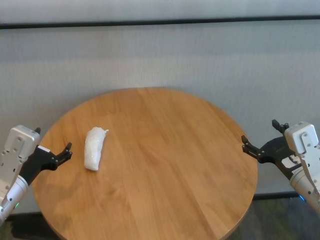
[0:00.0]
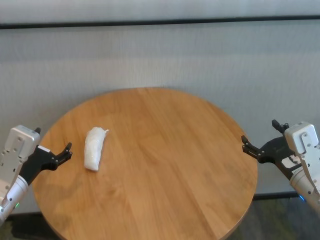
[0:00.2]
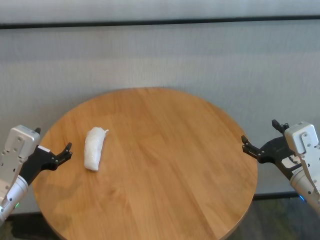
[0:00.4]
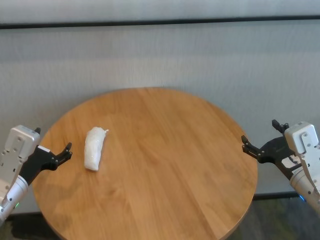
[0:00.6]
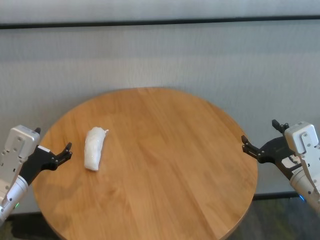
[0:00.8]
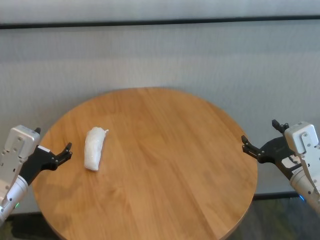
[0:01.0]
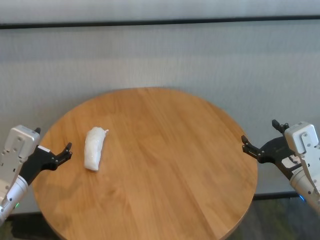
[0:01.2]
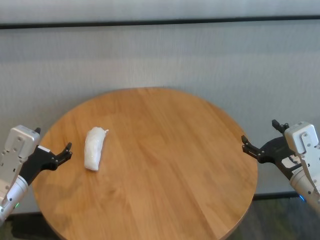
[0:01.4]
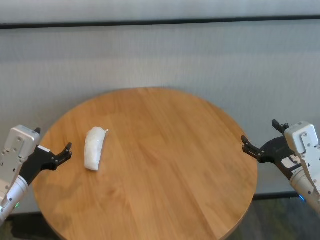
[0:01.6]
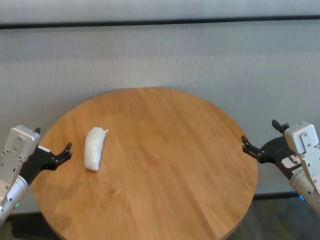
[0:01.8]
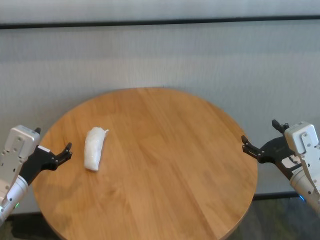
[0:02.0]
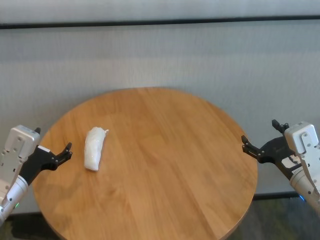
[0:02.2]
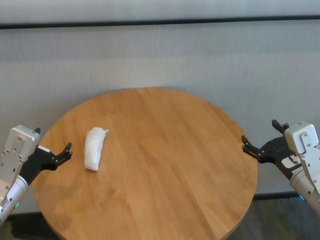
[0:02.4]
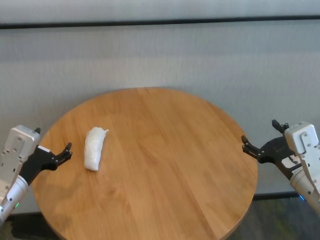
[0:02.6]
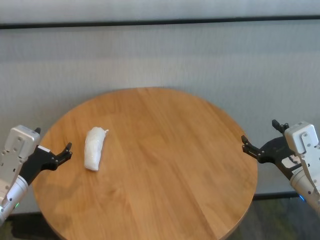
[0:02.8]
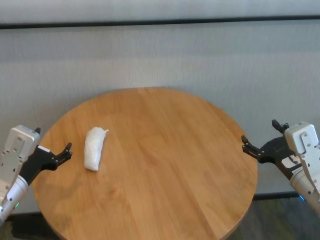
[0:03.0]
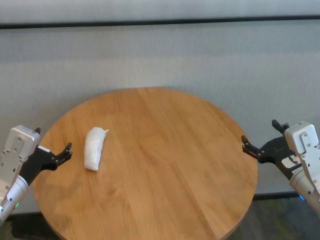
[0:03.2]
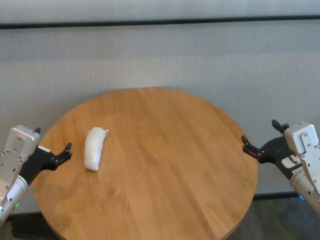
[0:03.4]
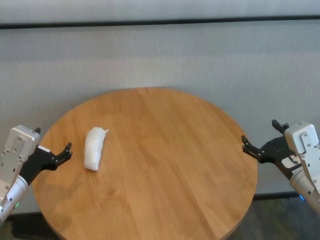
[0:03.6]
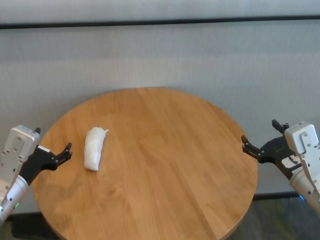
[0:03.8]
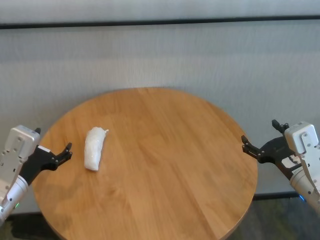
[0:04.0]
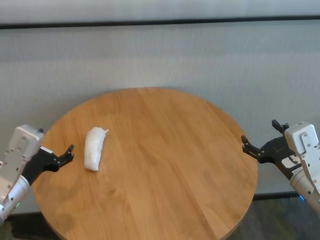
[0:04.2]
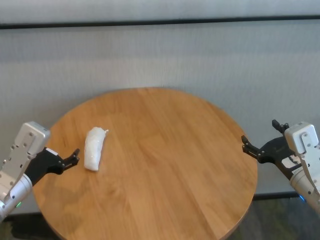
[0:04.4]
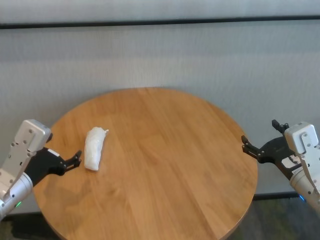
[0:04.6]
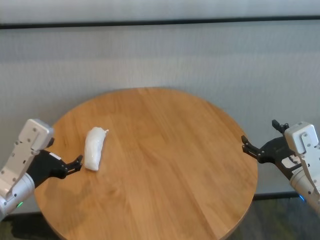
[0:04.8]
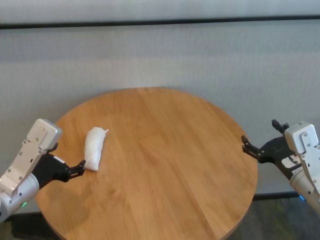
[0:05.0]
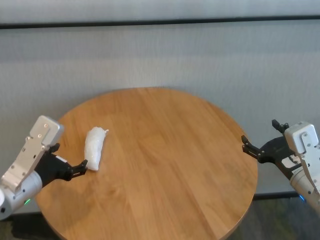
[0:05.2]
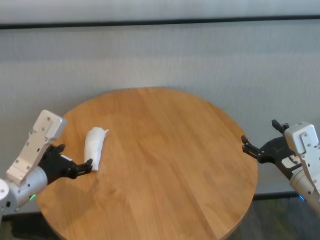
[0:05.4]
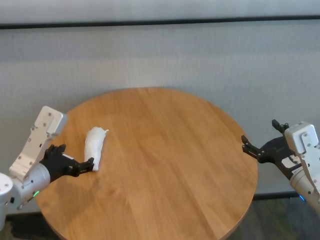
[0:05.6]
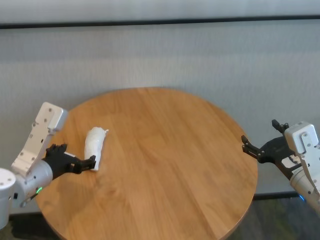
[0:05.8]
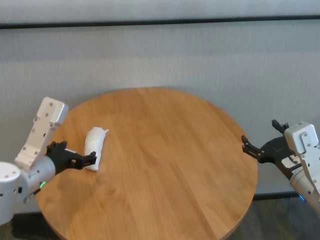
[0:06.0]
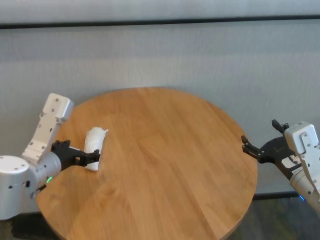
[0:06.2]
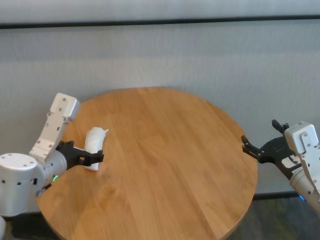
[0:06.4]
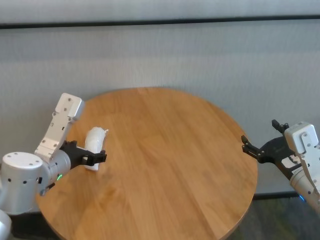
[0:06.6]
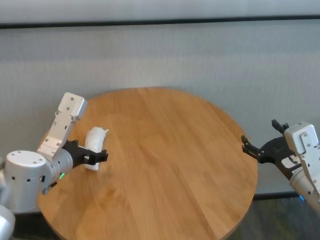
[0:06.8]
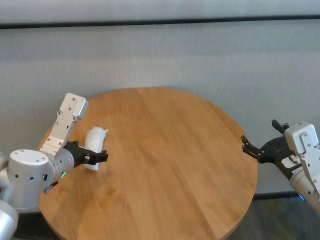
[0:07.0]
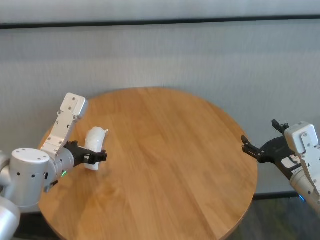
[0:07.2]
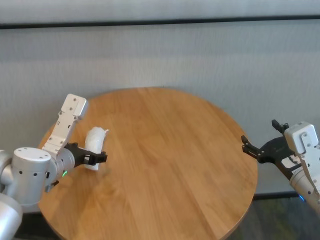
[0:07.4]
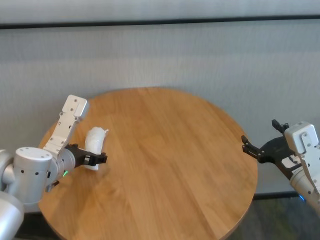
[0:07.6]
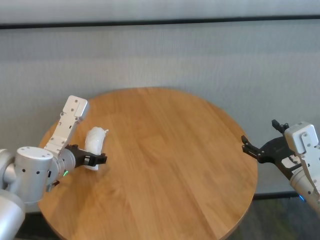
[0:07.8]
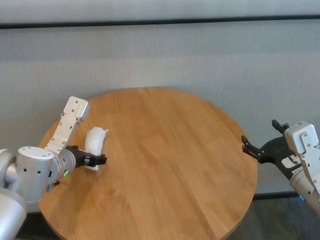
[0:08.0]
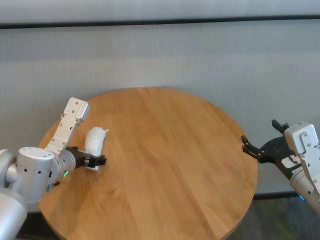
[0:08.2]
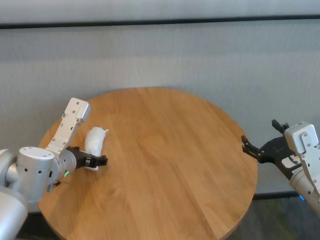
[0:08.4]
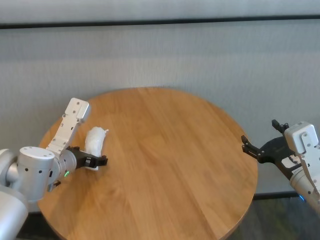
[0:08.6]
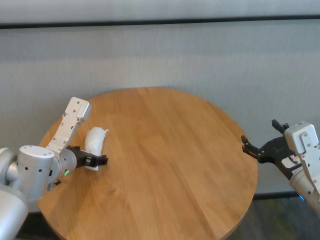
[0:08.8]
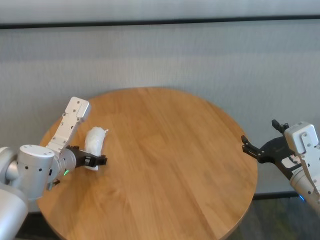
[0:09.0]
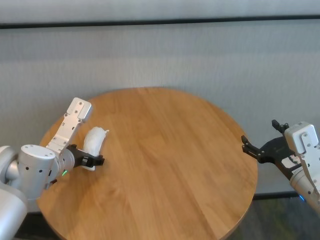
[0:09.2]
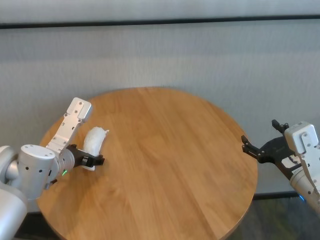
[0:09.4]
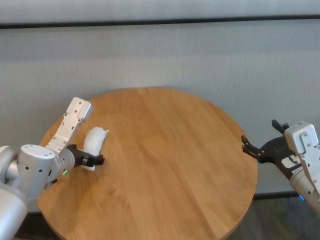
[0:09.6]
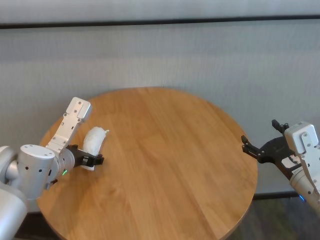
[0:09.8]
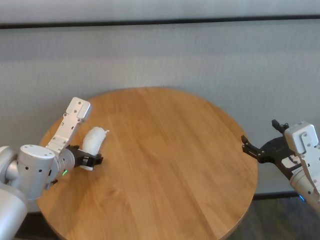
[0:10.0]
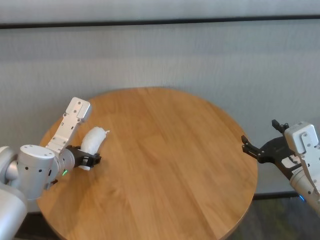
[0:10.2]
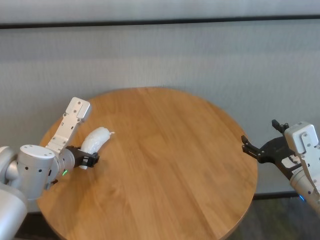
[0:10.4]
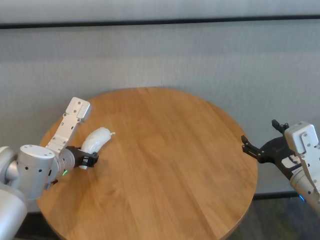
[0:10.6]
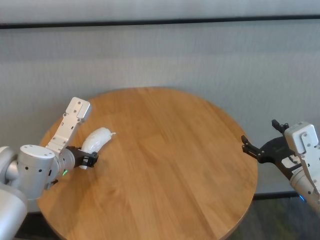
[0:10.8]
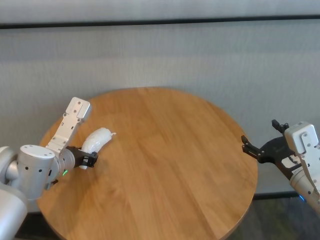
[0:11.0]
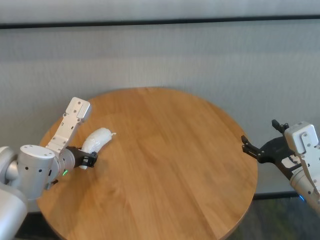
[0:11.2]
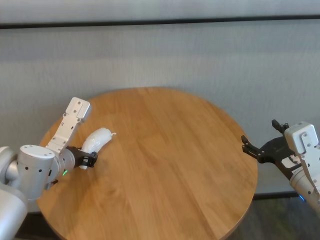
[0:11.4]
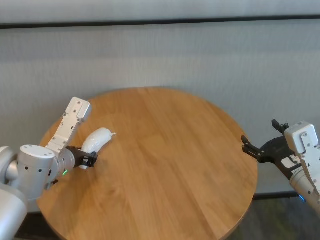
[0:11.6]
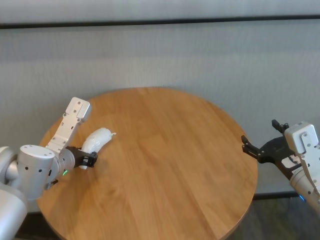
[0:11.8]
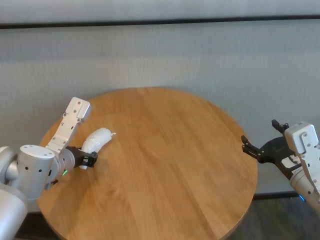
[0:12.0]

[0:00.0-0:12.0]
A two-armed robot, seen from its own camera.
Task of the whole recording: One hand took the sandbag from the other hand and placed it on the table.
Step, 0:00.0 to 0:11.0: Grasp the paper ball with left gripper.

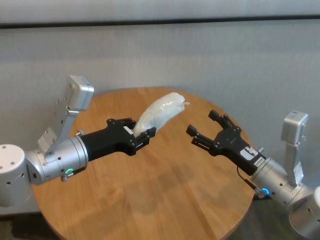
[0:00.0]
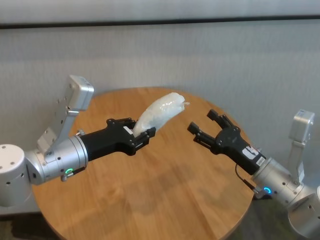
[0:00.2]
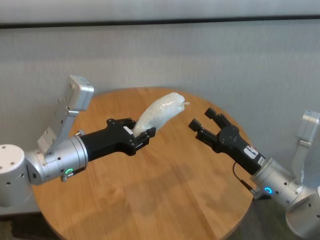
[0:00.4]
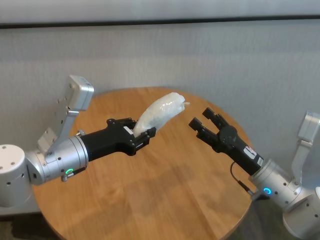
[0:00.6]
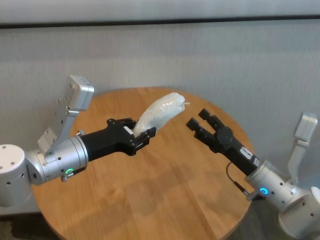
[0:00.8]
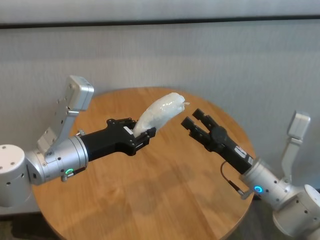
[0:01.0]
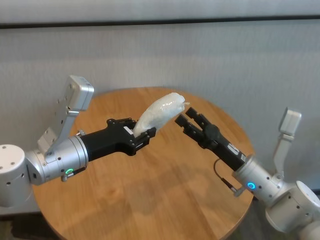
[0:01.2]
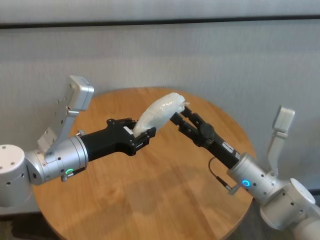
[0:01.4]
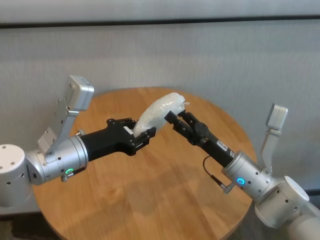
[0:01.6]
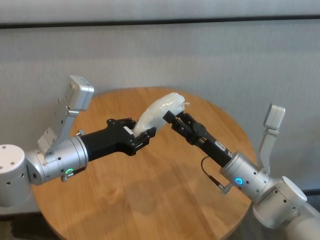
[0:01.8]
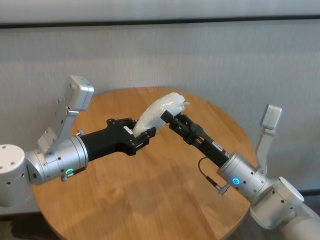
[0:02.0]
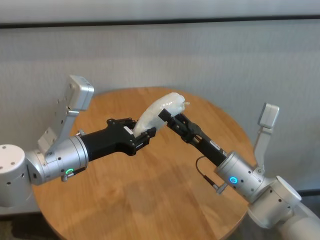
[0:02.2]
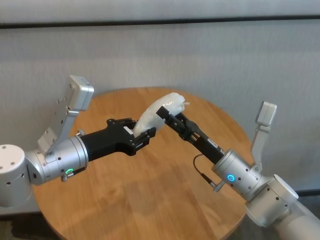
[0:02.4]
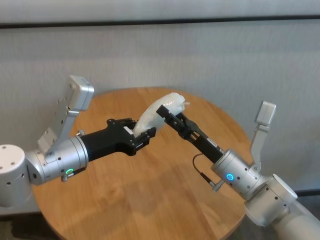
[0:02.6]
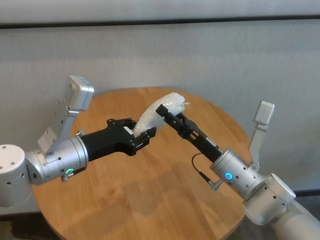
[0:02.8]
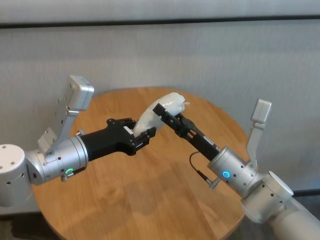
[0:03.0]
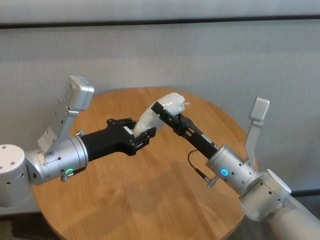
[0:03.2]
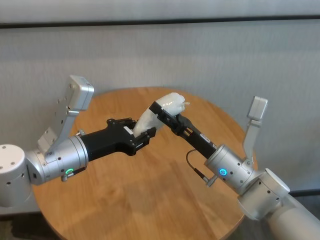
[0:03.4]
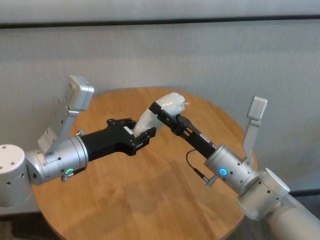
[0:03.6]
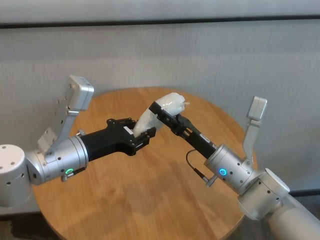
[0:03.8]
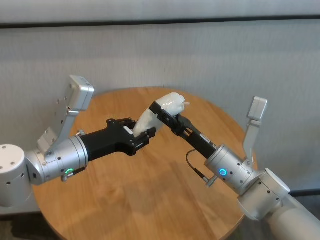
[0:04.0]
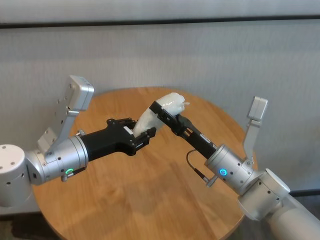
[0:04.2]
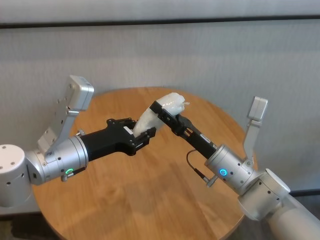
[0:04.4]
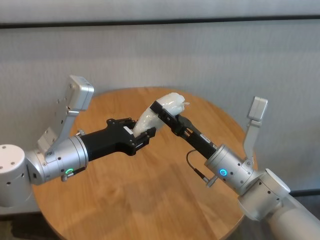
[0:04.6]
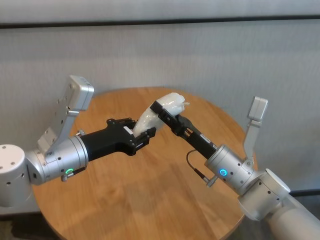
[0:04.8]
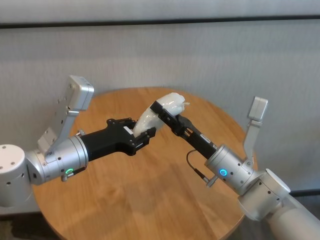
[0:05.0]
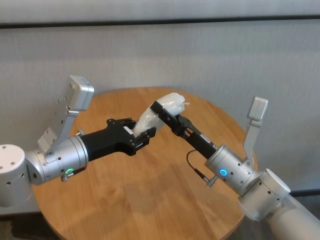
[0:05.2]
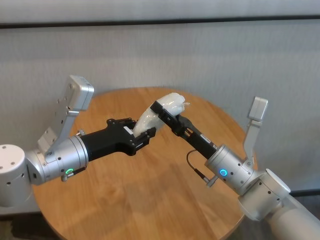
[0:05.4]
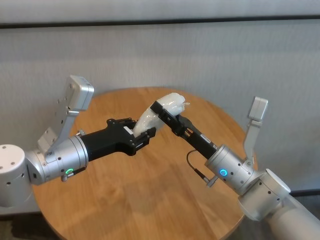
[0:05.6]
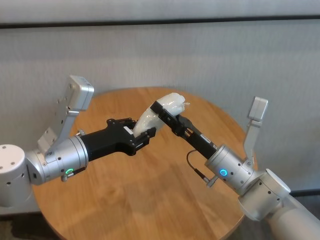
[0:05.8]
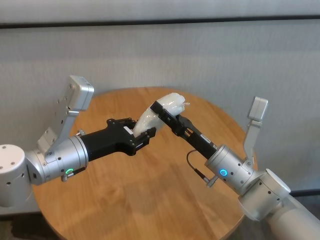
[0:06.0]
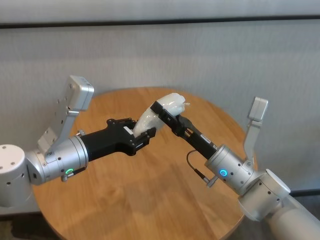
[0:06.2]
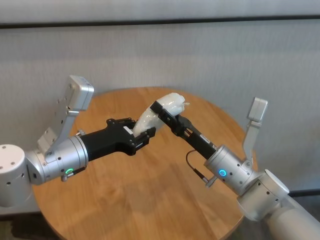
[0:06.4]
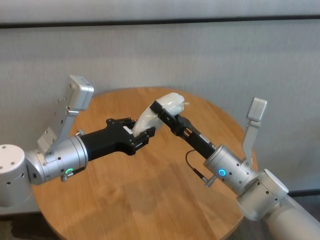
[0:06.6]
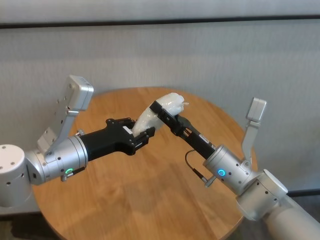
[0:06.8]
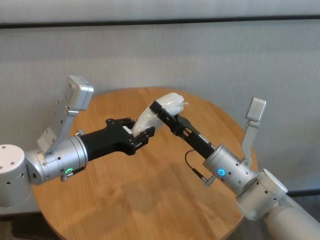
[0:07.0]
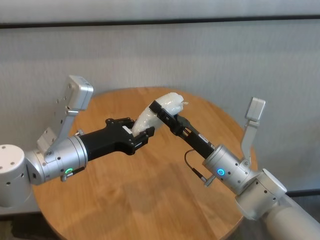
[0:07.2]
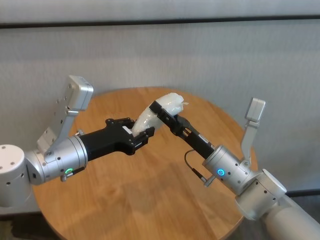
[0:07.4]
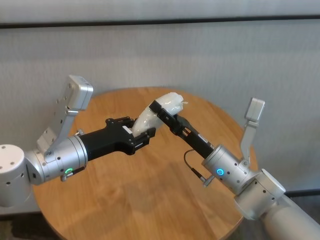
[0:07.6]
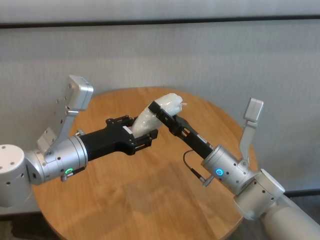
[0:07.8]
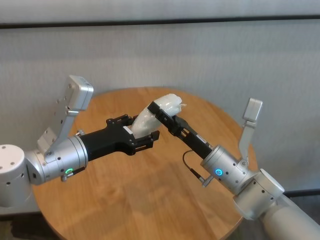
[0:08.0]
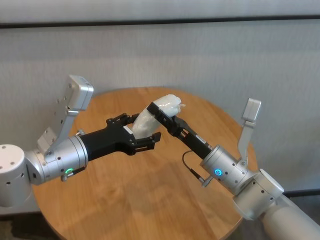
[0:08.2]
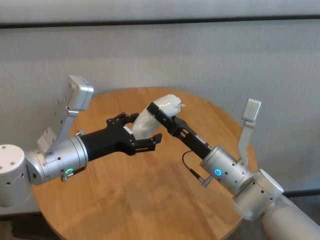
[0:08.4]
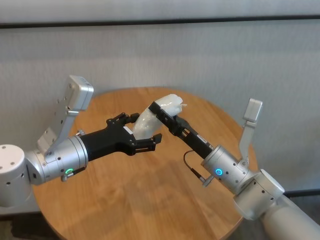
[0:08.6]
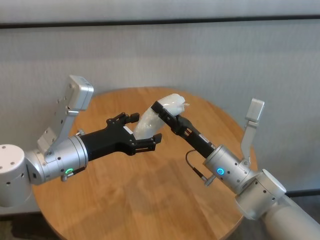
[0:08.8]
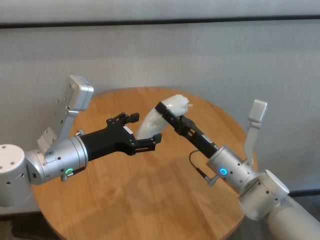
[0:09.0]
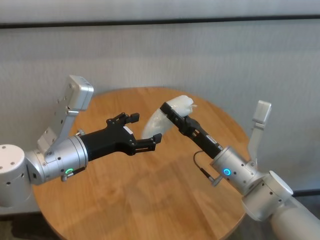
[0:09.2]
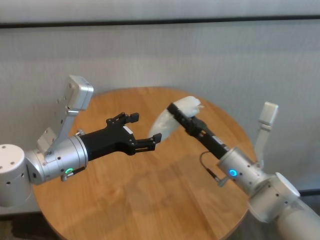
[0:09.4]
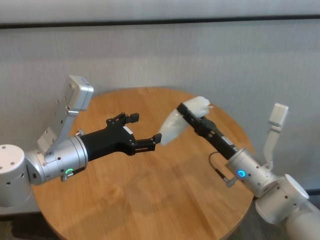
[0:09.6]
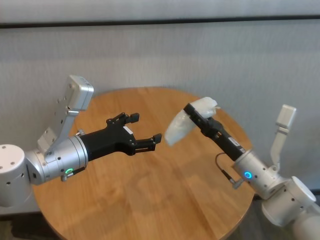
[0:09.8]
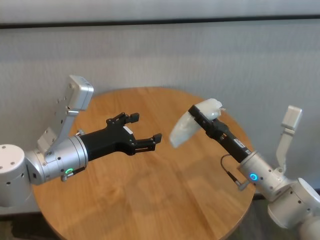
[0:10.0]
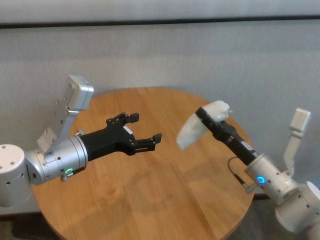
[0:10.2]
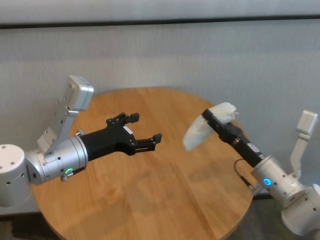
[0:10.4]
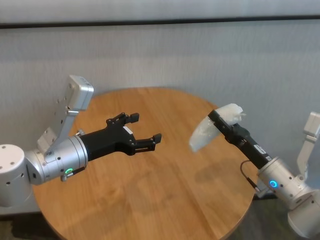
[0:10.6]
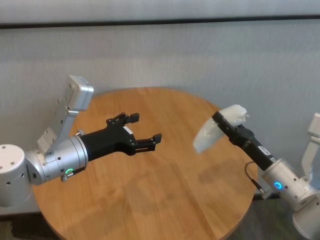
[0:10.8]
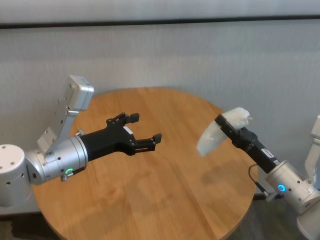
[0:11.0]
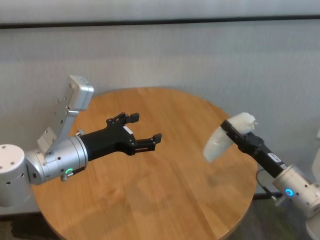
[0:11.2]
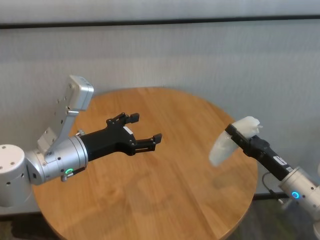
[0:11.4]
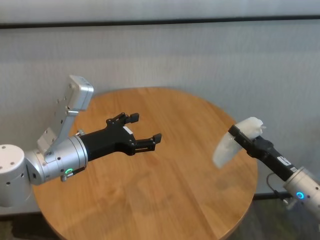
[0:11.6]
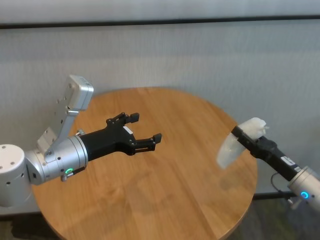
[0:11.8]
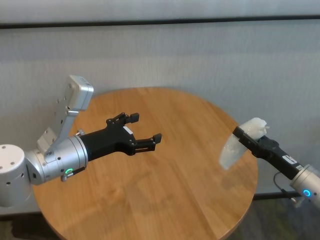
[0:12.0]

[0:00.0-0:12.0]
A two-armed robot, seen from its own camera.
Task of the whole recording: One hand took the sandbag from the other hand and placed it on the table.
Step, 0:00.0 to 0:09.6: Pass the paper ball to the right gripper.
